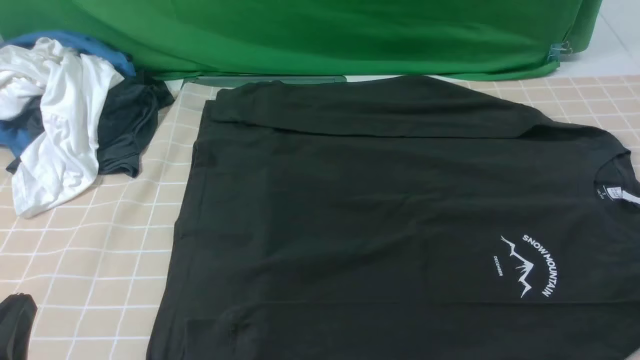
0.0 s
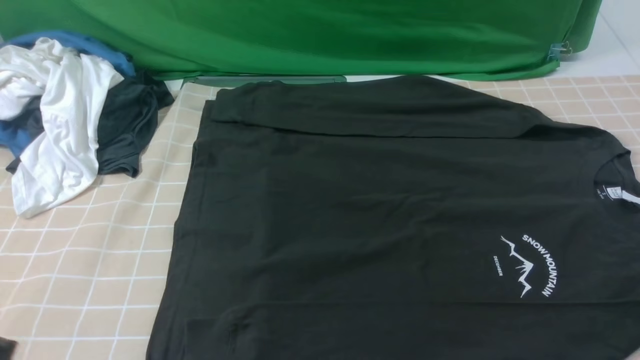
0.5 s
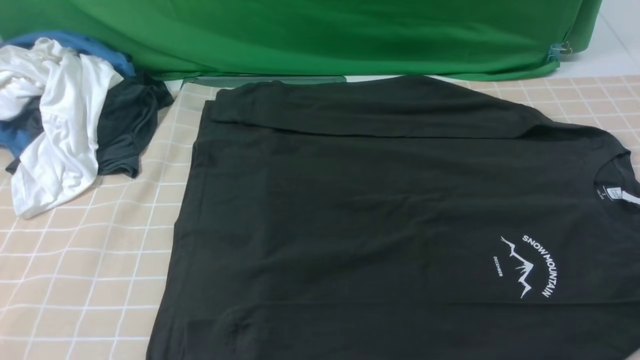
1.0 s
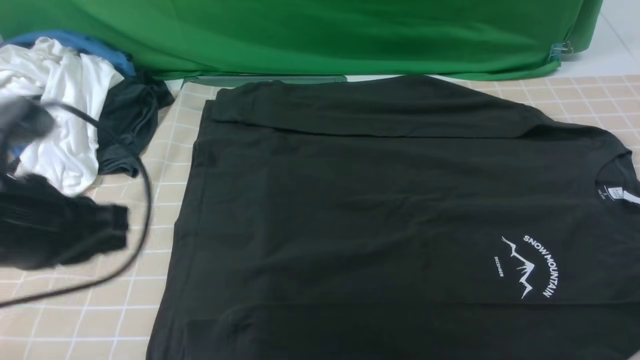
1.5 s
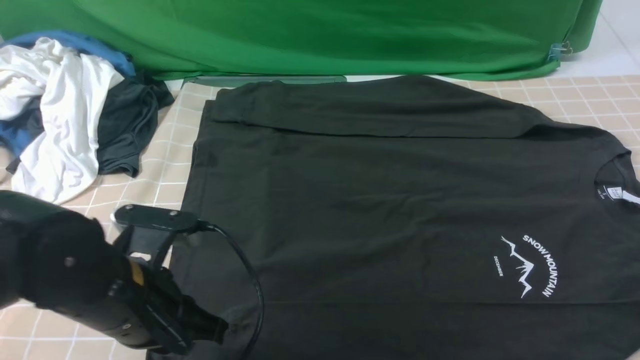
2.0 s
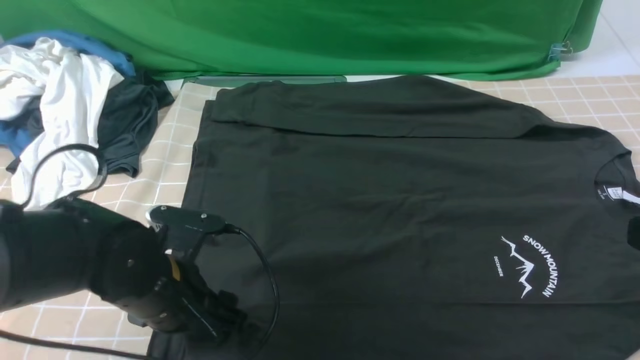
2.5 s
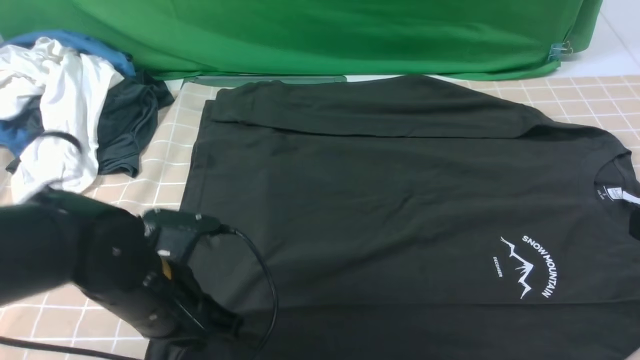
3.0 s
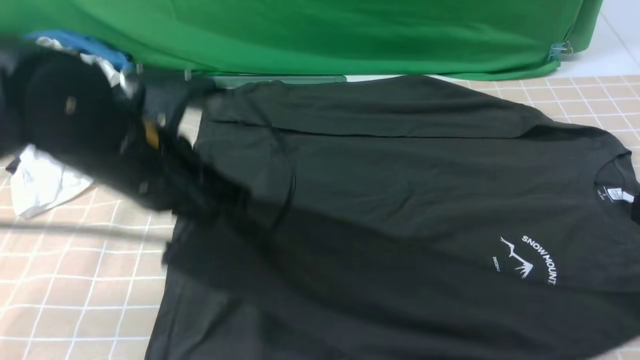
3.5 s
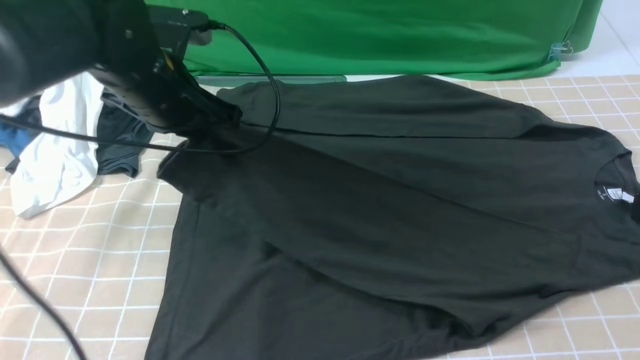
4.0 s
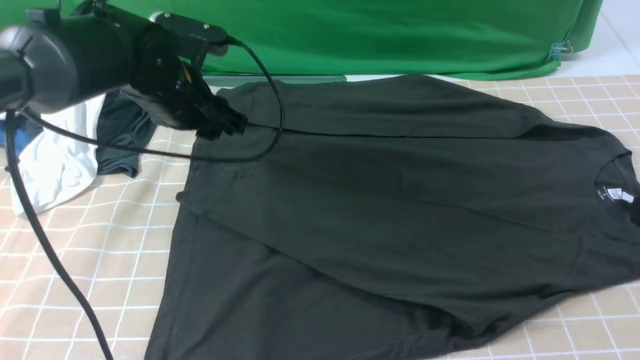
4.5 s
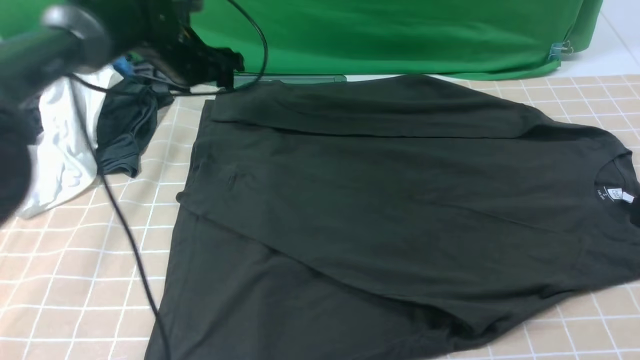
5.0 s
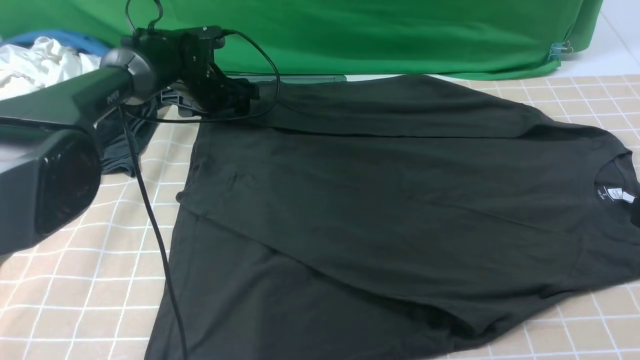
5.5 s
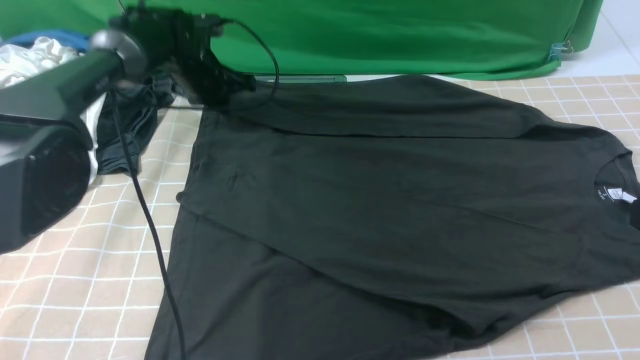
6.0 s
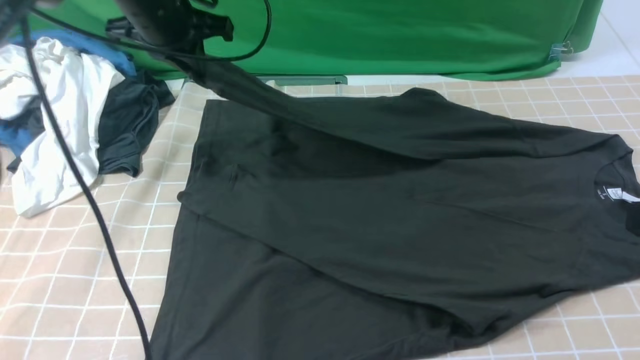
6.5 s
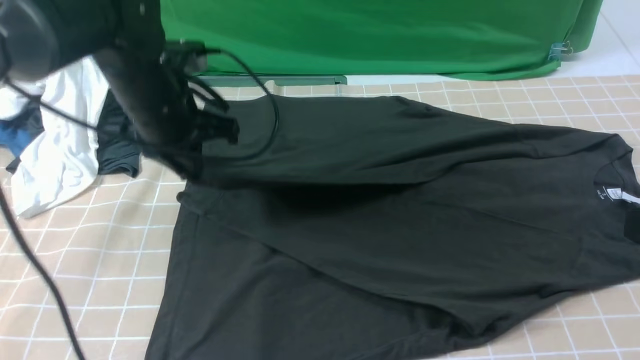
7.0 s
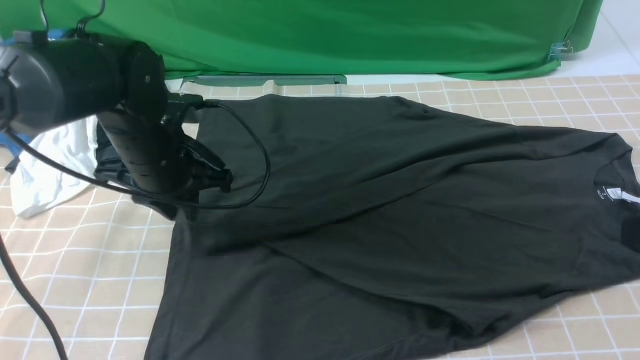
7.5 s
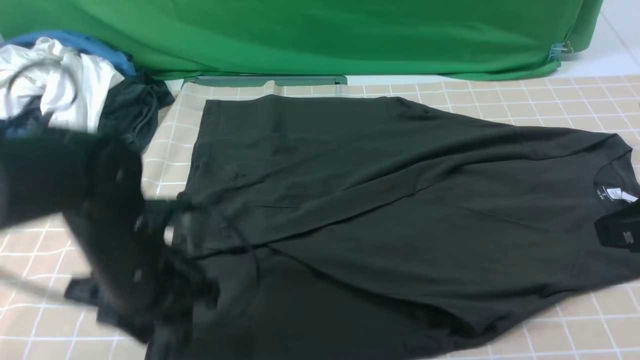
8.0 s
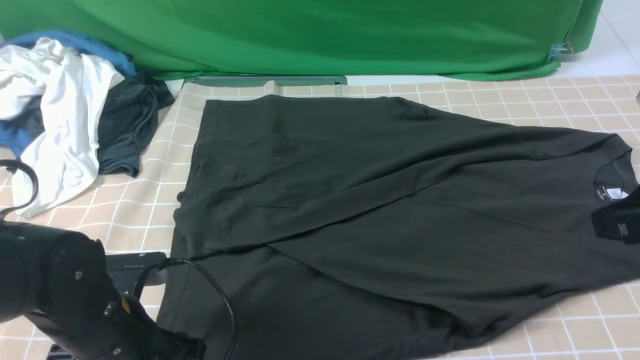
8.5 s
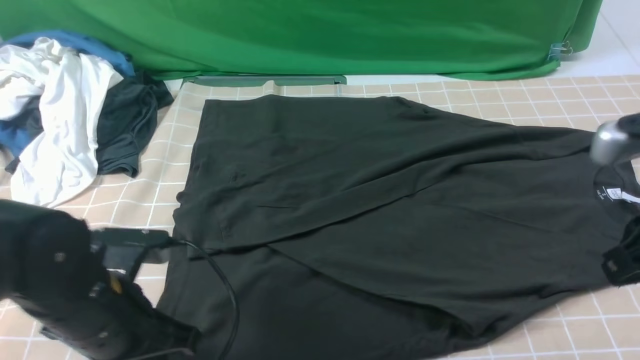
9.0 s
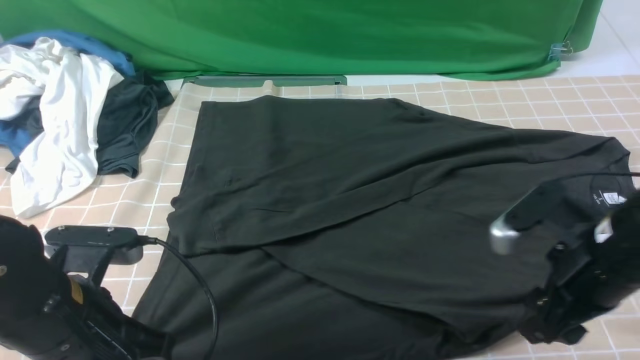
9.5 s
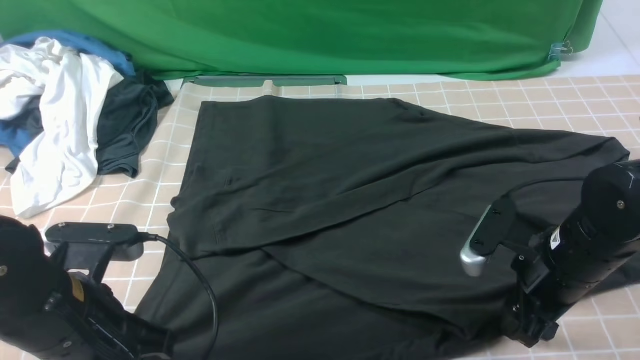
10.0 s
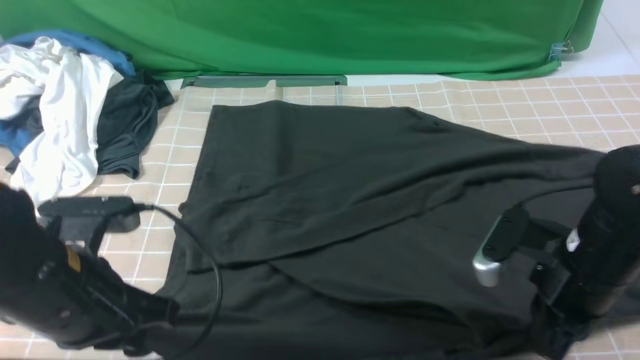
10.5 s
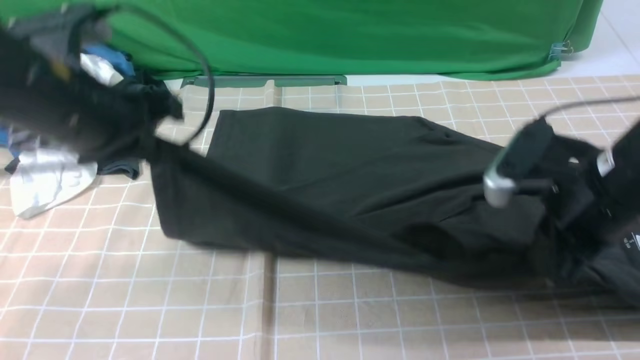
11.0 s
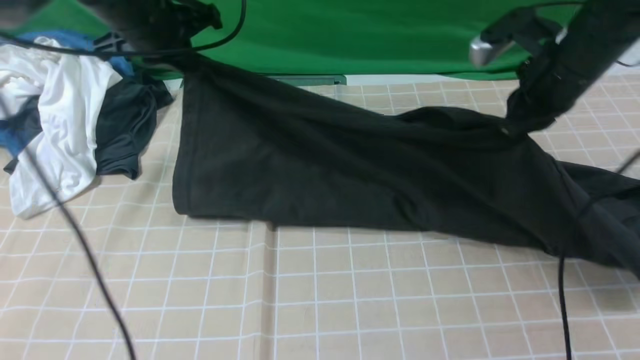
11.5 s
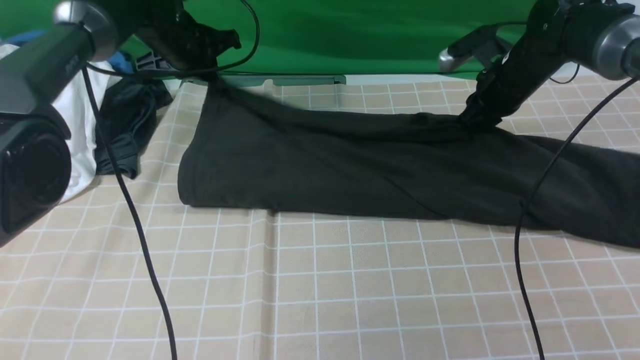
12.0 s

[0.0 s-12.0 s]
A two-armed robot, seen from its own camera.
Step, 0.0 to 2.5 s: use the left arm to clamp the cuff closest to it.
Step, 3.0 to 4.5 s: use the left arm to drag and place the cuff at the centered position on the left edge of the fabric.
Step, 5.0 to 5.5 s: use the left arm to clamp the cuff farthest from it.
Step, 6.0 to 7.5 s: use the left arm to drag and drop the cuff onto the cuff closest to the left arm.
Step, 8.0 to 10.0 s: use both arms simultaneously to clamp the lower edge of the clothing fabric.
0.0 to 2.0 s: The left gripper heads forward and to the right, covering about 15 cm.
2.0 to 4.0 s: The left gripper moves forward, some 15 cm, and opens, then closes once more.
4.0 to 6.0 s: The left gripper goes approximately 15 cm forward and downward, and opens, then closes again.
6.0 to 8.0 s: The right gripper ends up roughly 5 cm from where it was; the left gripper heads backward, covering approximately 30 cm, and opens its fingers.
8.0 to 10.0 s: The right gripper goes roughly 20 cm downward and forward, and opens up. Meanwhile the left gripper heads backward, covering approximately 5 cm, and closes up.
10.0 to 12.0 s: Both grippers travel together forward, approximately 30 cm. The right gripper closes.

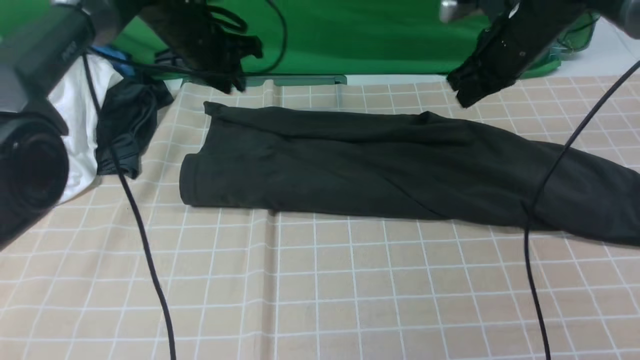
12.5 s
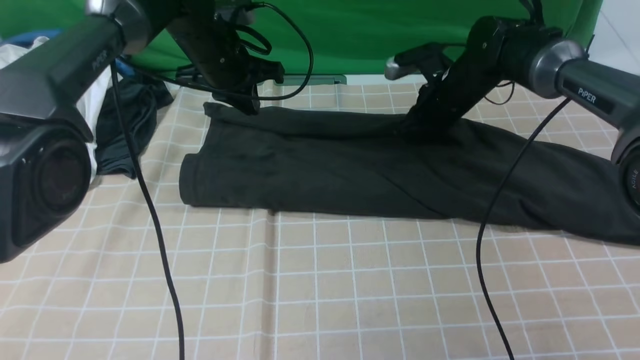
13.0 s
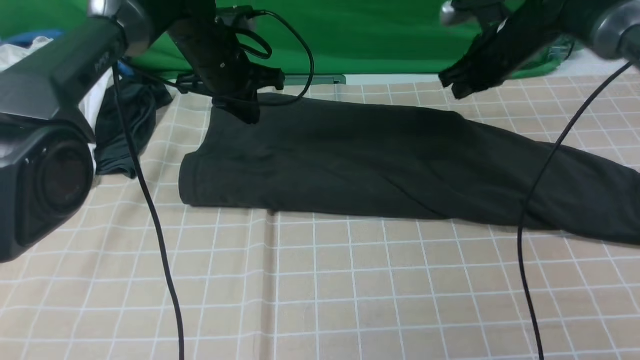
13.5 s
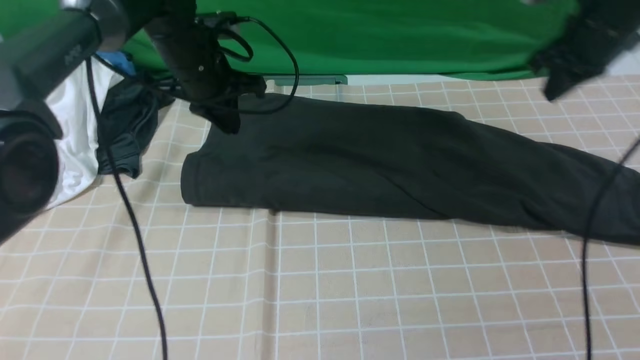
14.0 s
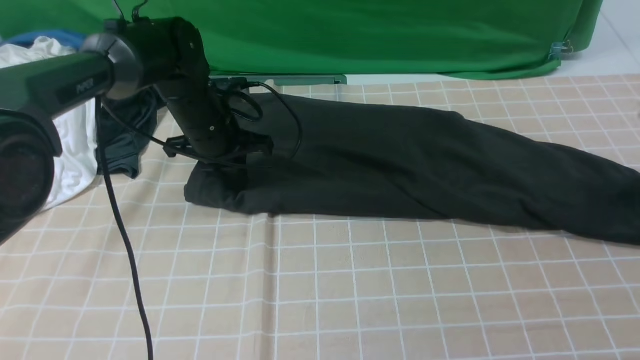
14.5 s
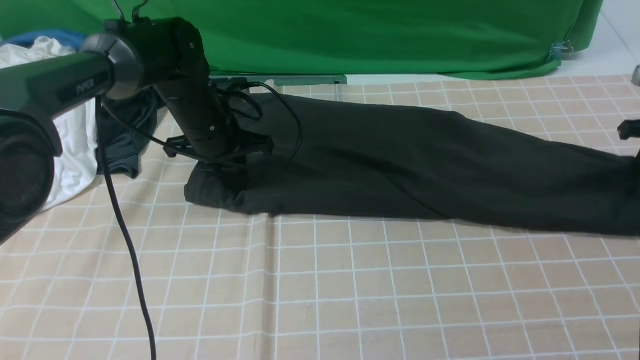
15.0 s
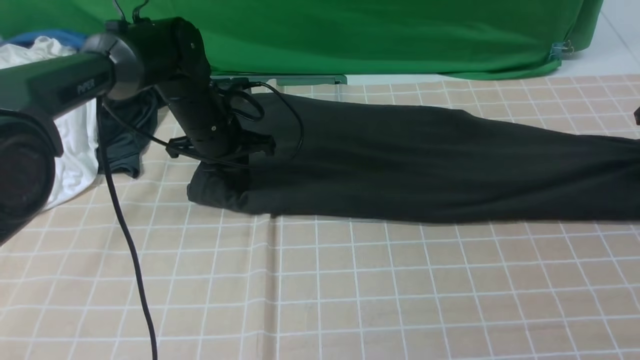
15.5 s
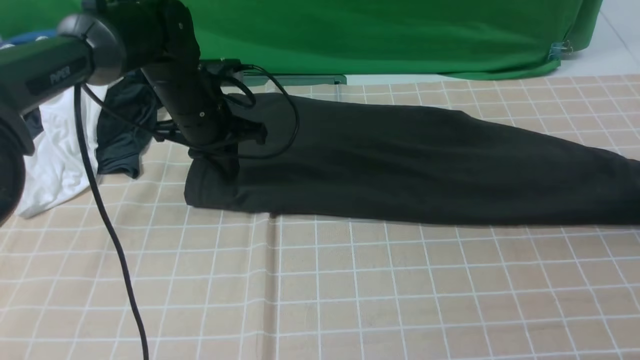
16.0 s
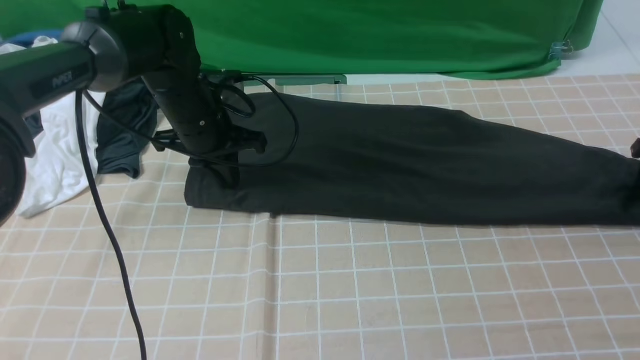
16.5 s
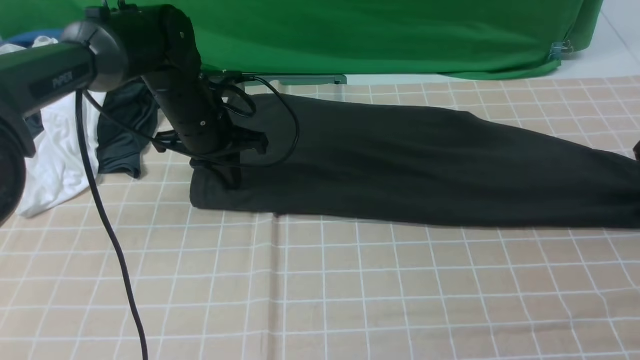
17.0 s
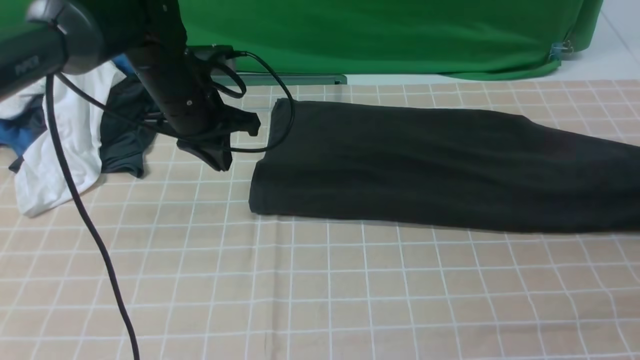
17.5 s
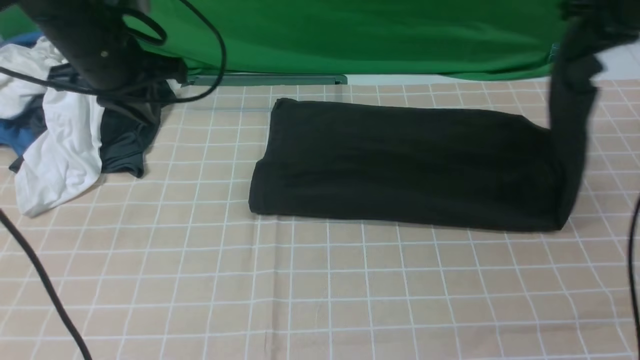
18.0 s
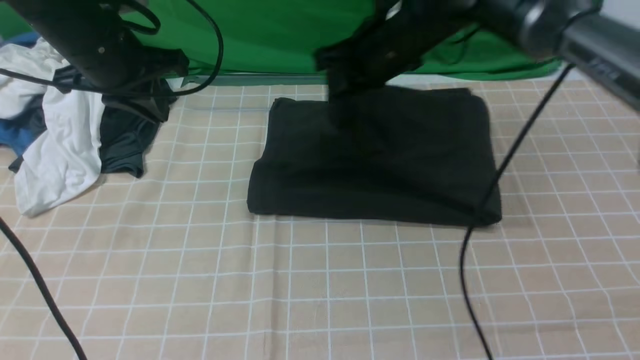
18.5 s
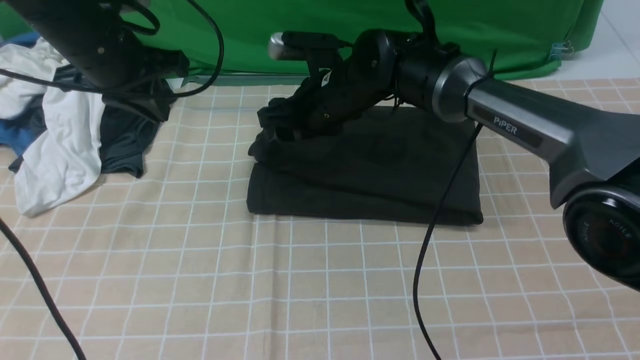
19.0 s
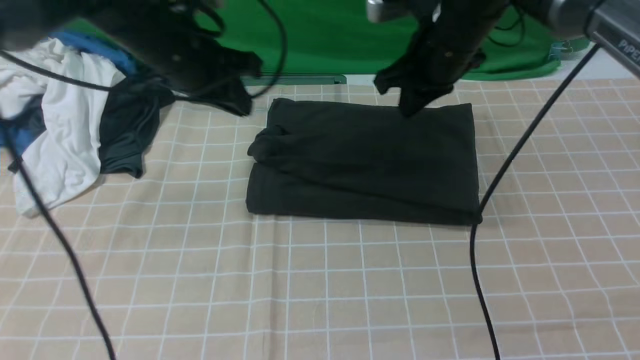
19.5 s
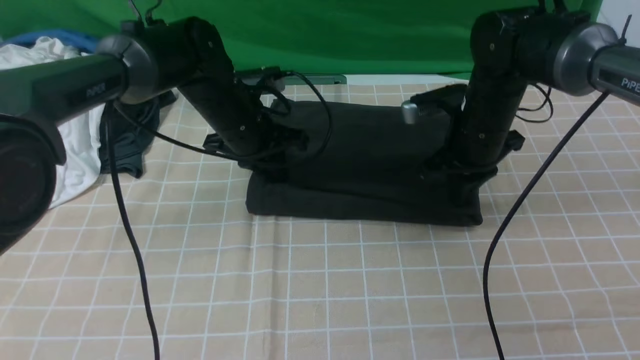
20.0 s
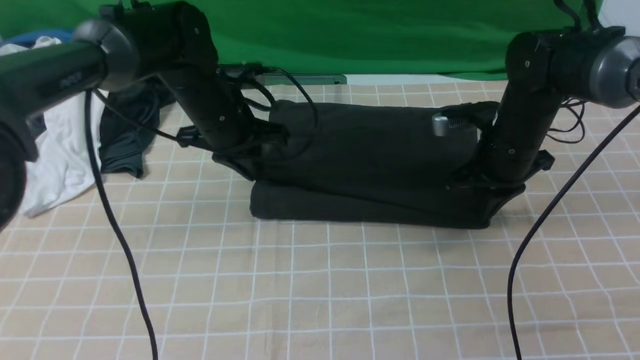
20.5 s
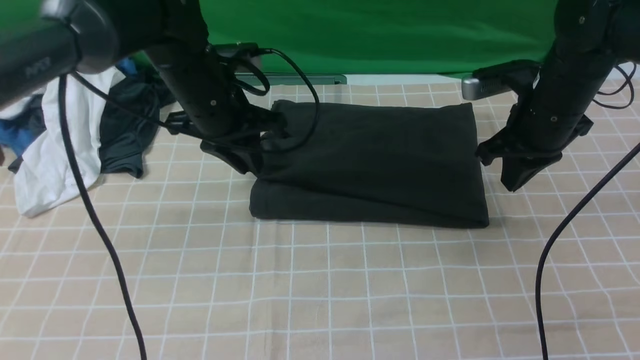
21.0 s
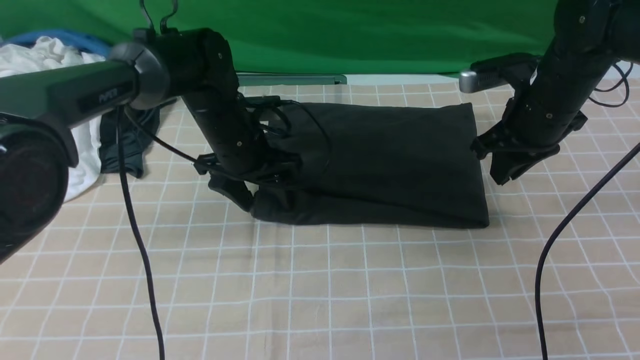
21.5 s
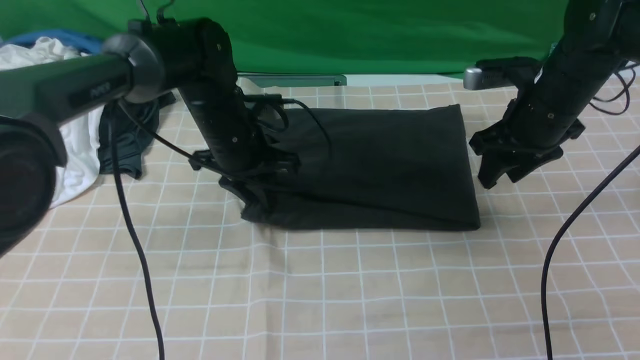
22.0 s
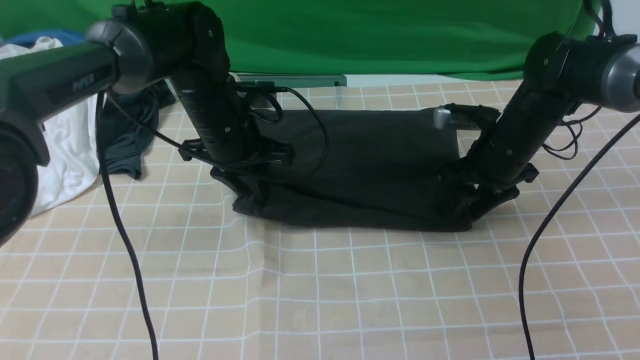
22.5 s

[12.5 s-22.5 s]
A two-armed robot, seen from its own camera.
Step, 13.5 to 16.5 s: use the right arm to clamp the right edge of the fabric.
Step, 17.0 to 19.0 s: use the right arm to drag the right edge of the fabric to the left and folds it over the left edge.
12.5 to 14.5 s: The left gripper travels downward and backward by some 10 cm. Meanwhile the right gripper heads to the right, covering about 25 cm, and opens.
14.5 to 16.5 s: The right gripper goes roughly 5 cm downward, and closes, then reopens.
16.5 to 18.5 s: The left gripper moves upward and to the left, approximately 15 cm; the right gripper heads to the left, covering about 40 cm, and closes its fingers.
18.5 to 20.5 s: Both grippers travel together to the right and downward, some 15 cm. The right gripper opens, then closes once more.
20.5 to 22.5 s: The left gripper opens, then closes again, while the right gripper opens up.
